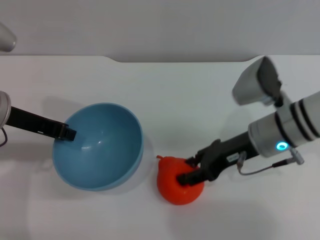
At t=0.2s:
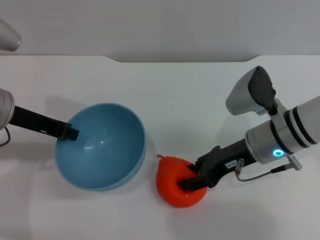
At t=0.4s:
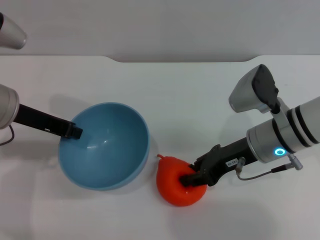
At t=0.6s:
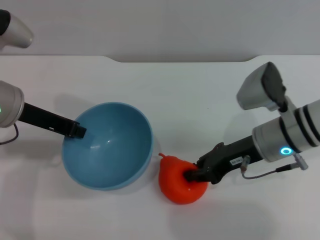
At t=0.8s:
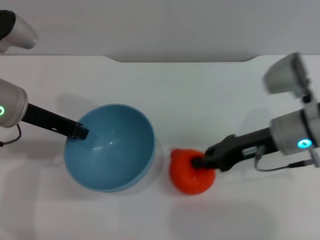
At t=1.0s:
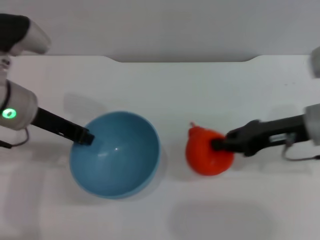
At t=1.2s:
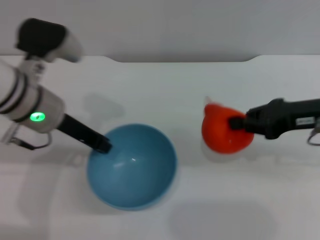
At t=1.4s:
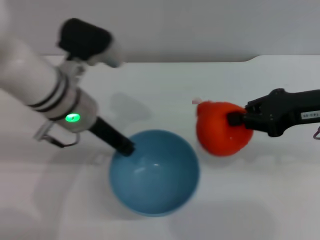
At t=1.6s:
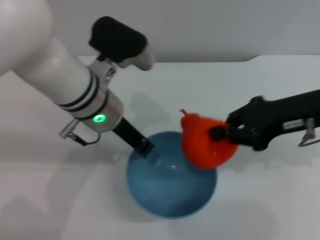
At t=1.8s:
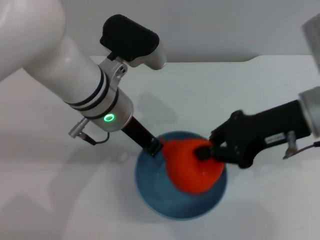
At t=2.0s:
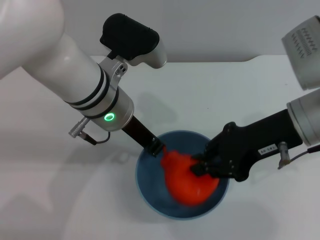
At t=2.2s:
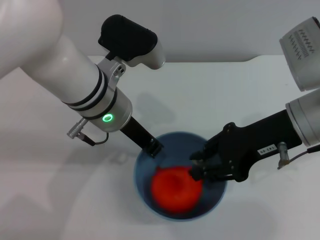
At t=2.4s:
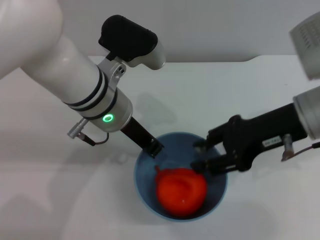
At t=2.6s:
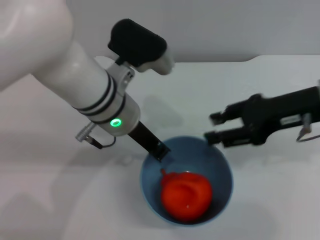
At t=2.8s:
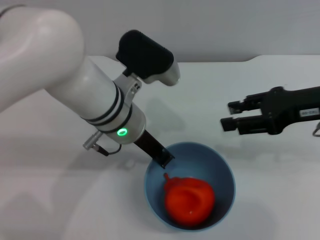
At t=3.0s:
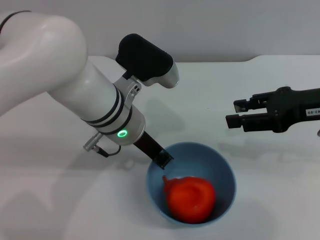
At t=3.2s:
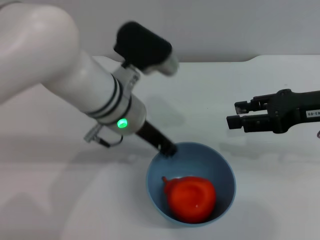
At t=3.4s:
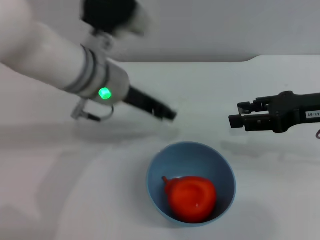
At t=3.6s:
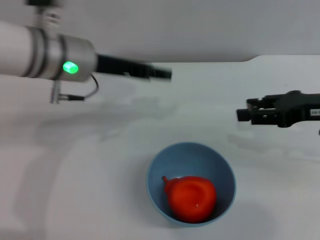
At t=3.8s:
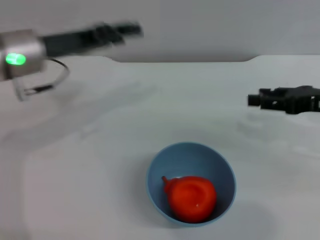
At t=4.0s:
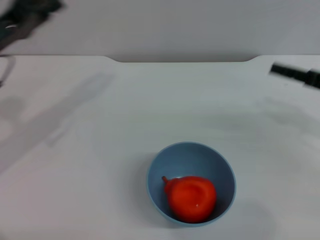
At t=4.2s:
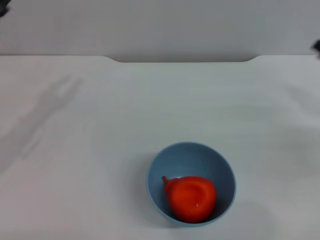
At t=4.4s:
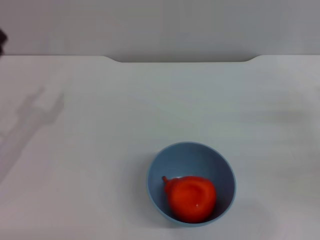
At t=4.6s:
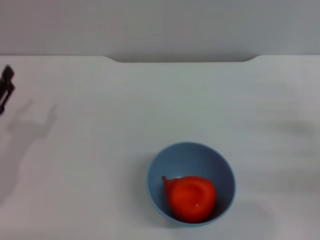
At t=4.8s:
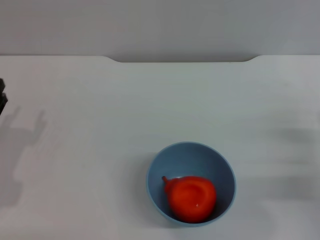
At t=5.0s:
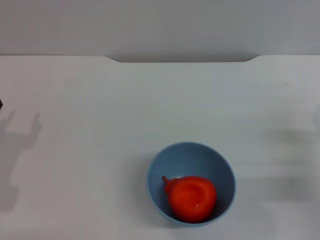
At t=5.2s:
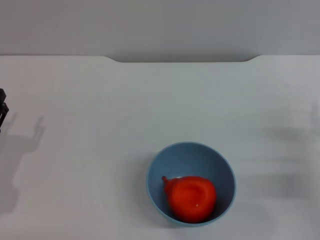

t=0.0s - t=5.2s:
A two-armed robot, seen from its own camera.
Task of the whole recording: put the orange into the blue bowl and pour it out repeatedly.
Step, t=1.2s - t=2.4s: Place the orange into the bowl.
Step, t=2.8s - t=3.4s: Place the bowl on the table.
t=0.0s - t=1.8s: The right gripper heads upward, covering roughly 10 cm, and closes up. The left gripper shifts approximately 15 cm to the right.
t=1.8s - t=3.4s: The right gripper is displaced to the right by about 5 cm, and opens.
t=3.4s - t=5.2s: The left gripper moves to the left, downward and backward, roughly 30 cm, and opens its fingers, while the right gripper goes about 15 cm downward and backward.
